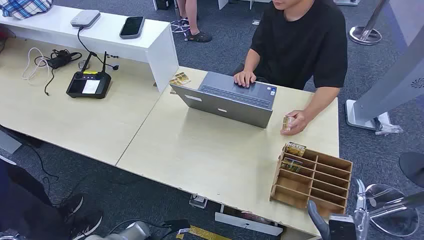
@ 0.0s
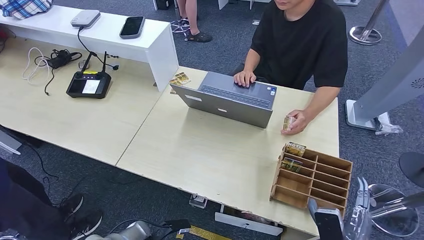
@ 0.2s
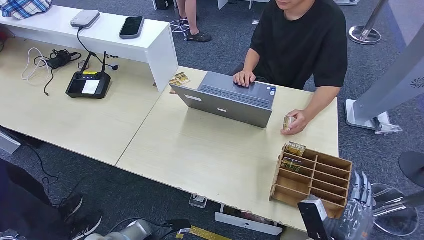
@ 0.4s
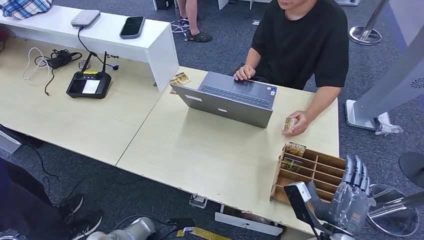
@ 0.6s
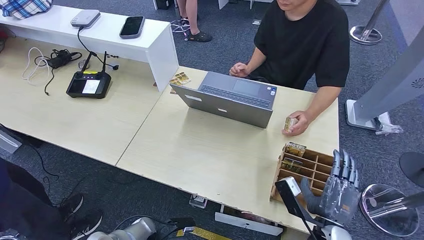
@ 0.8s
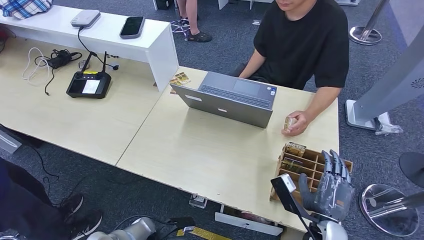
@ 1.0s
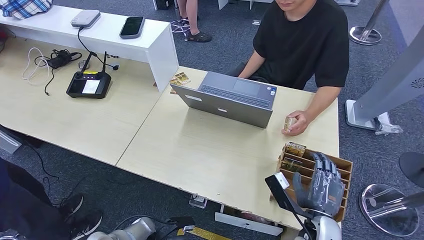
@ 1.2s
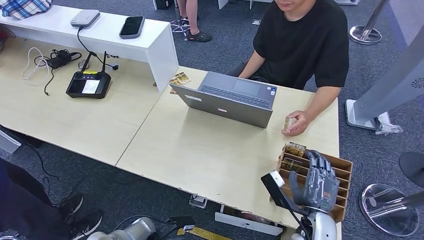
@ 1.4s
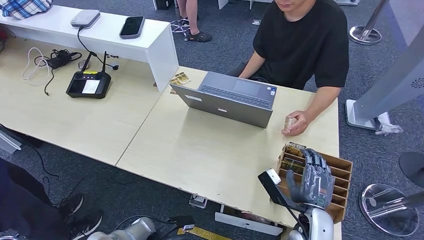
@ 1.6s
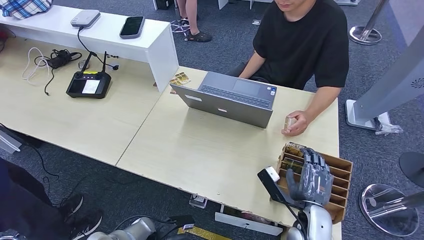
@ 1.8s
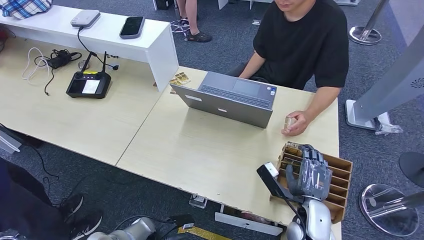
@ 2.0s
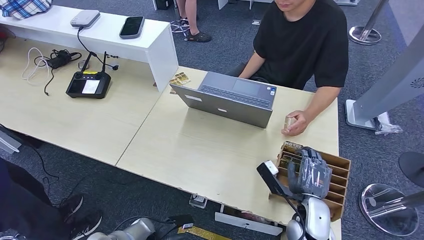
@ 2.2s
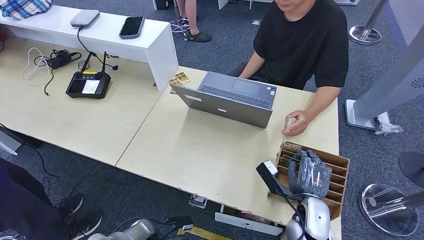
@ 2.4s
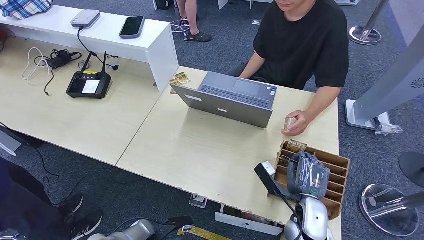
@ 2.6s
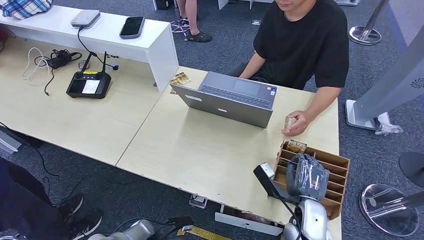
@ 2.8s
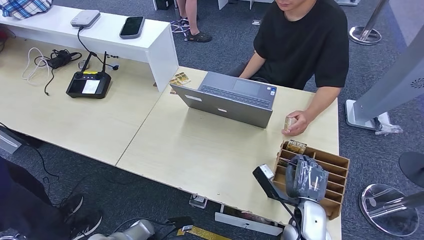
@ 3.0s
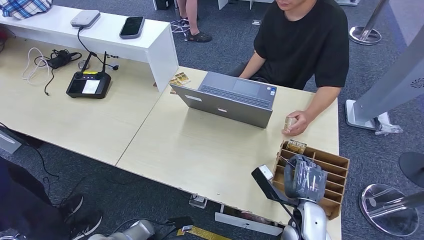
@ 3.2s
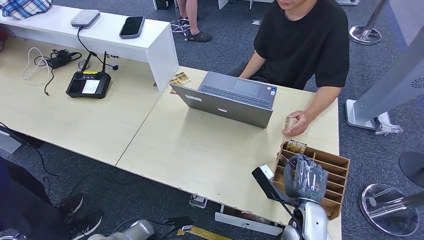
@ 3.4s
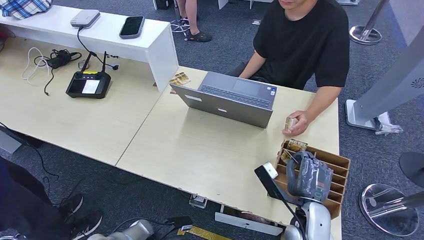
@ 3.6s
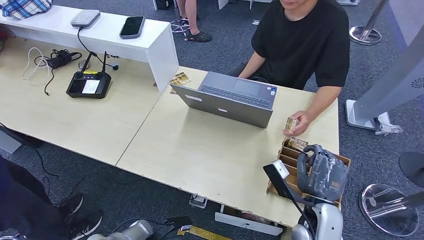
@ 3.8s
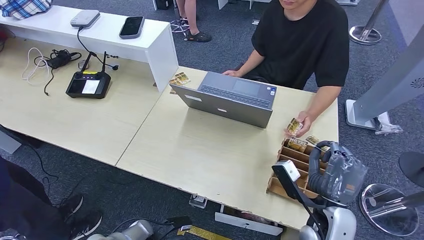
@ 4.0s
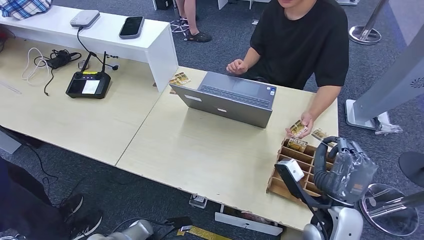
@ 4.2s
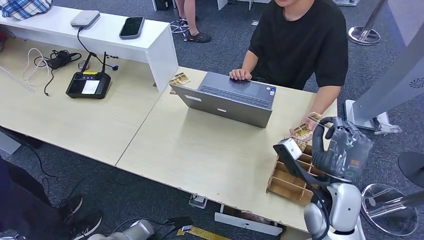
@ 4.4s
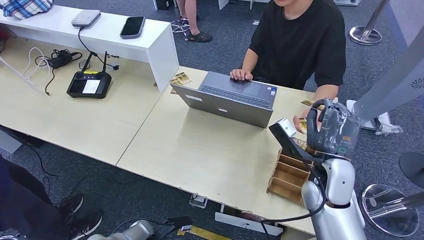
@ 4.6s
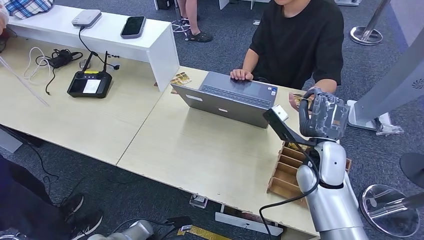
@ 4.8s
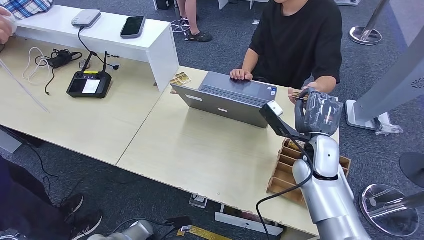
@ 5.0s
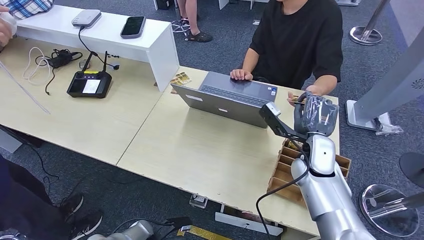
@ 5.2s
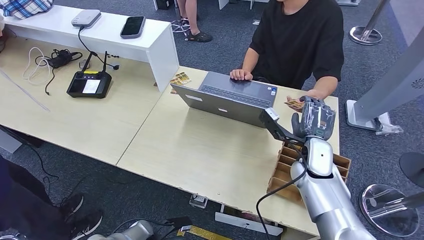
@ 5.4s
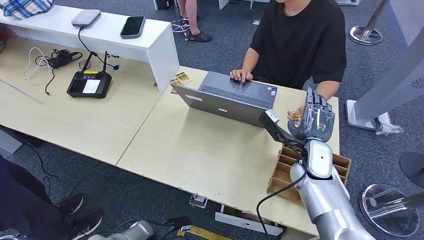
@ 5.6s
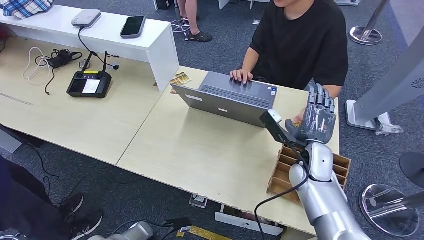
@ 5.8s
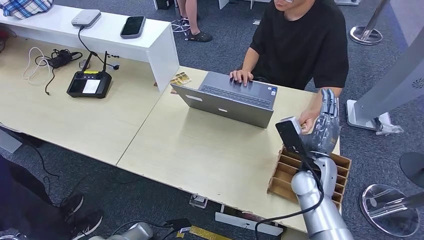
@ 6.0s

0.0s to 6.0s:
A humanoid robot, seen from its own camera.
Step, 0.0s to 3.4s: Pick up the room card from the card holder.
Step, 3.8s to 5.8s: Hand the room card to the target.
1.6s to 3.0s: The hands move only a little.
3.0s to 4.4s: The right hand is displaced upward by approximately 10 cm.
4.4s to 6.0s: The right hand moves forward, approximately 5 cm.
